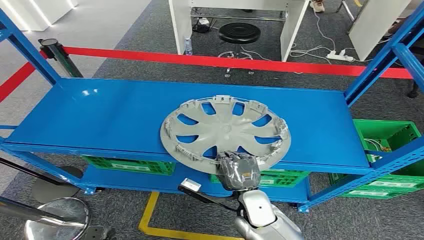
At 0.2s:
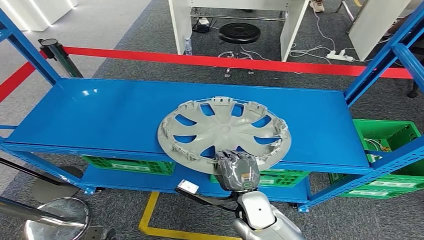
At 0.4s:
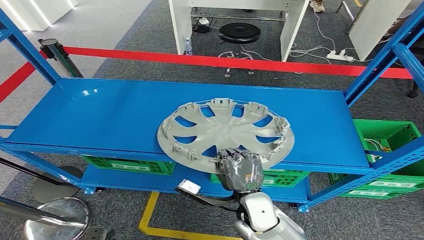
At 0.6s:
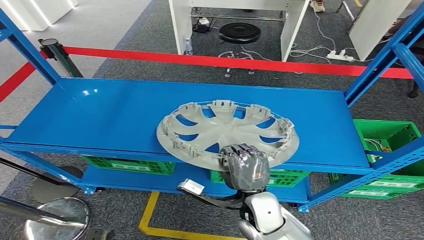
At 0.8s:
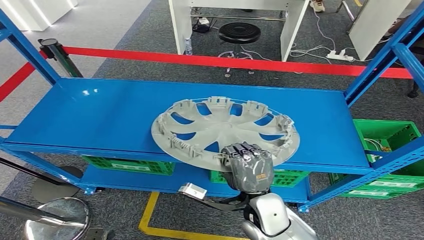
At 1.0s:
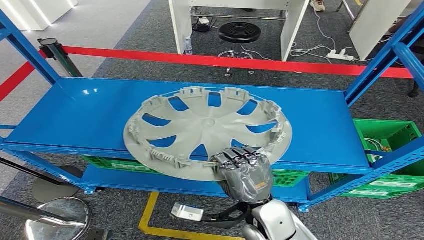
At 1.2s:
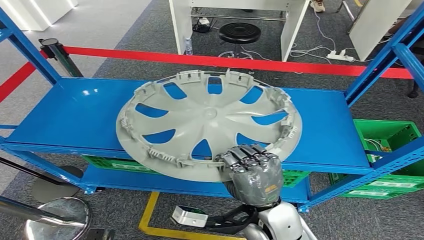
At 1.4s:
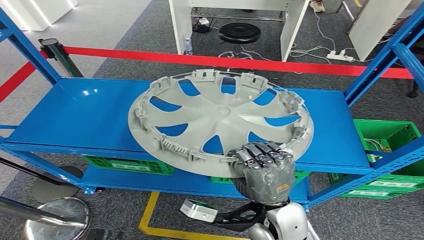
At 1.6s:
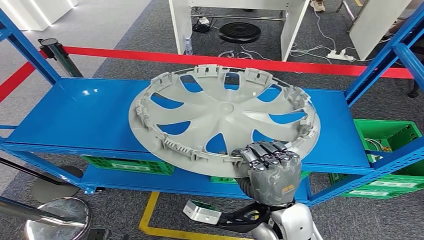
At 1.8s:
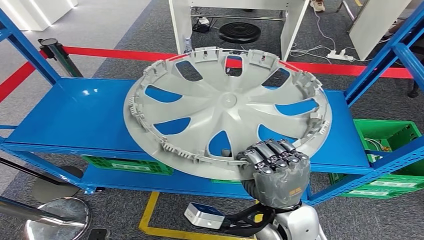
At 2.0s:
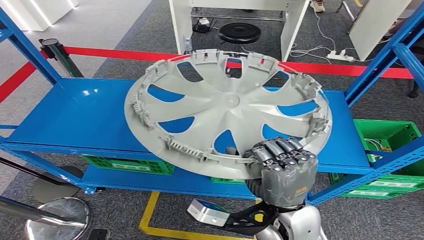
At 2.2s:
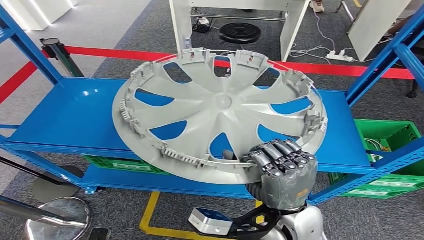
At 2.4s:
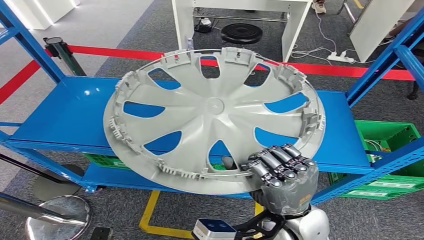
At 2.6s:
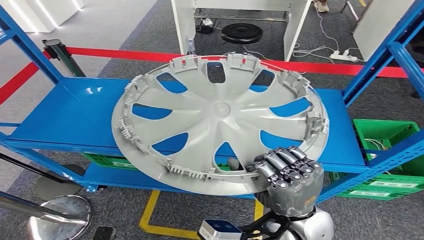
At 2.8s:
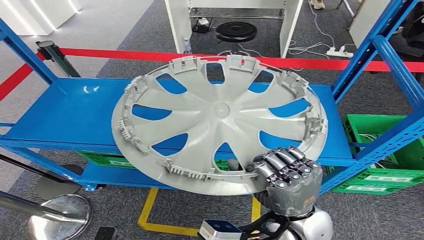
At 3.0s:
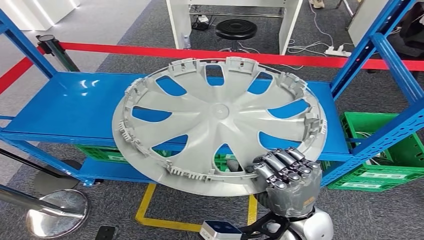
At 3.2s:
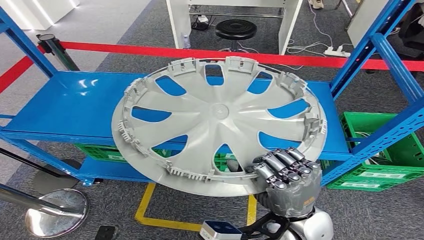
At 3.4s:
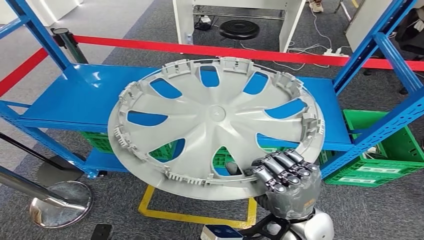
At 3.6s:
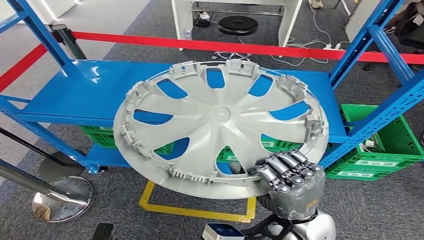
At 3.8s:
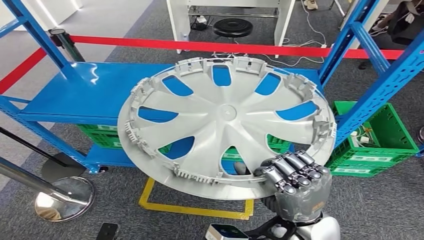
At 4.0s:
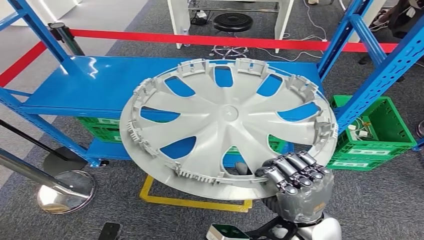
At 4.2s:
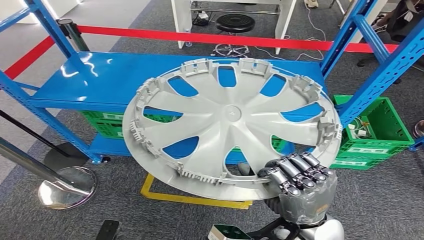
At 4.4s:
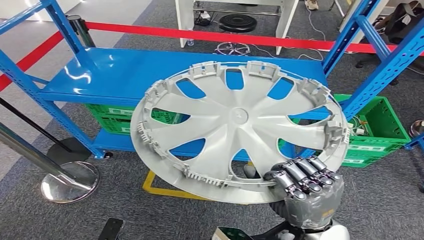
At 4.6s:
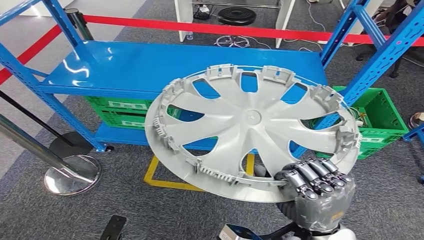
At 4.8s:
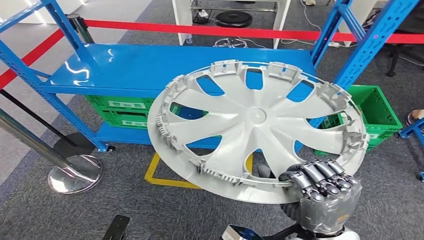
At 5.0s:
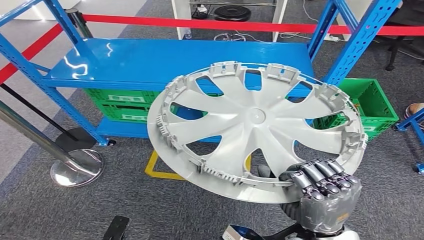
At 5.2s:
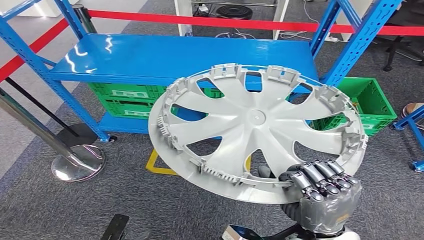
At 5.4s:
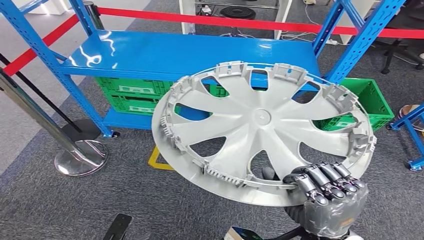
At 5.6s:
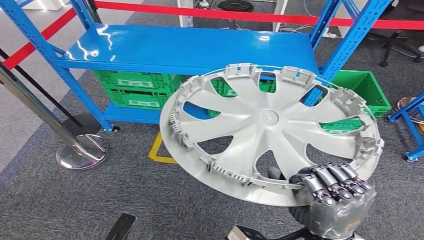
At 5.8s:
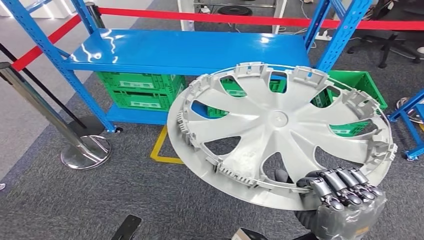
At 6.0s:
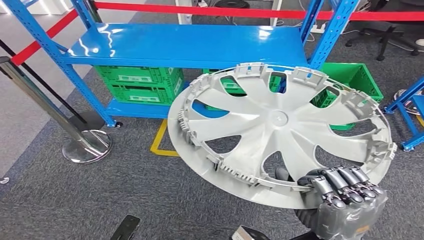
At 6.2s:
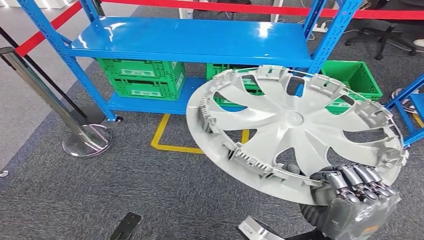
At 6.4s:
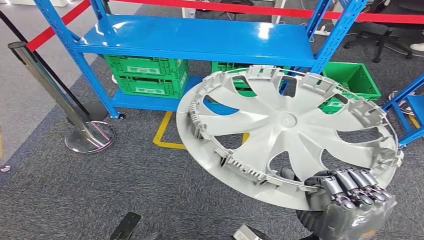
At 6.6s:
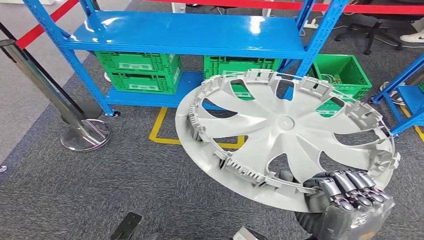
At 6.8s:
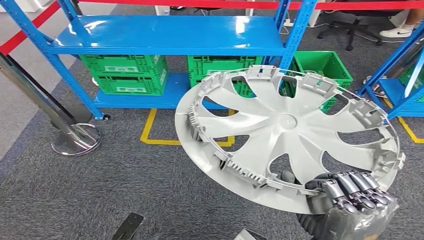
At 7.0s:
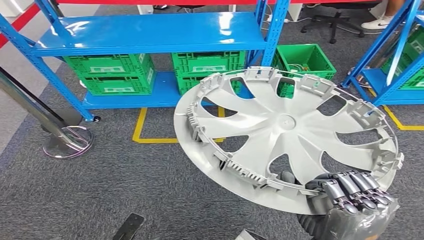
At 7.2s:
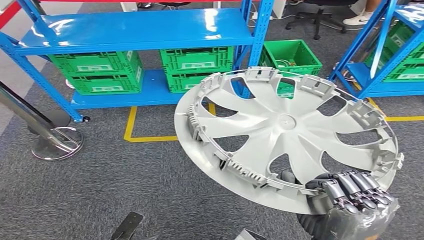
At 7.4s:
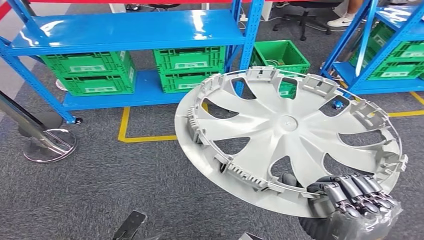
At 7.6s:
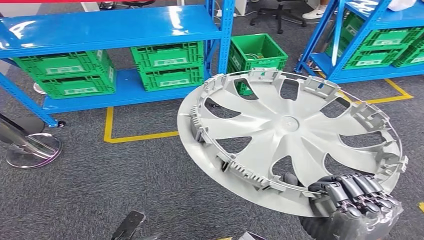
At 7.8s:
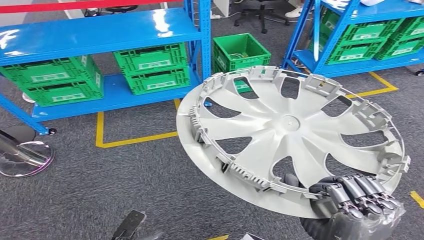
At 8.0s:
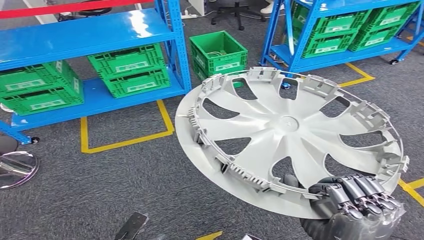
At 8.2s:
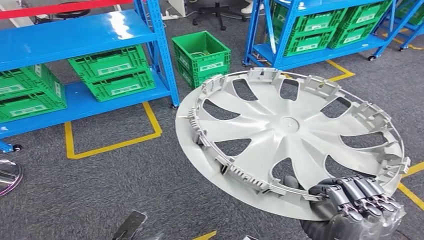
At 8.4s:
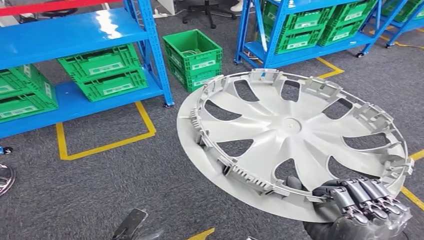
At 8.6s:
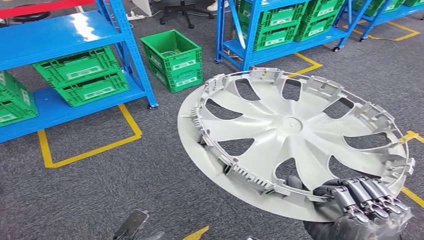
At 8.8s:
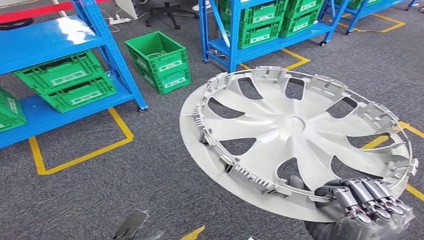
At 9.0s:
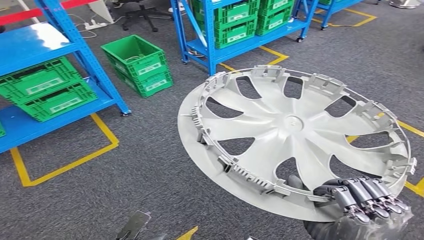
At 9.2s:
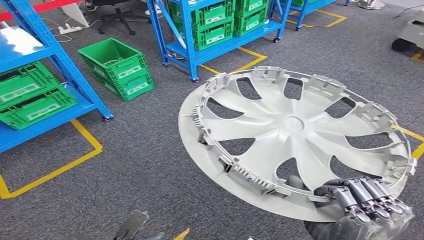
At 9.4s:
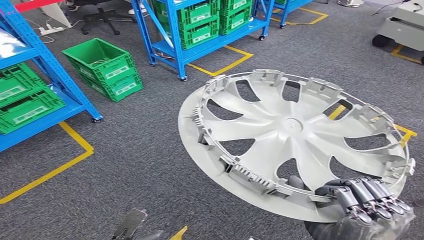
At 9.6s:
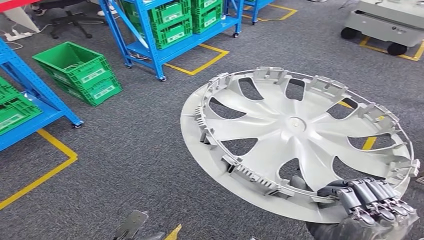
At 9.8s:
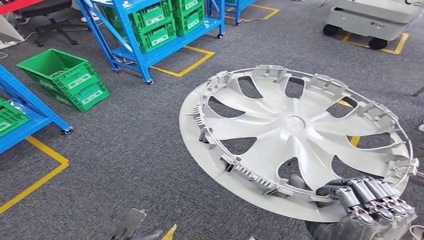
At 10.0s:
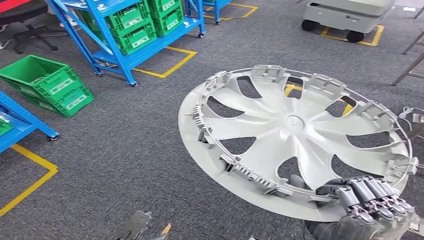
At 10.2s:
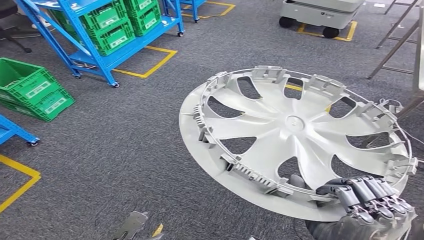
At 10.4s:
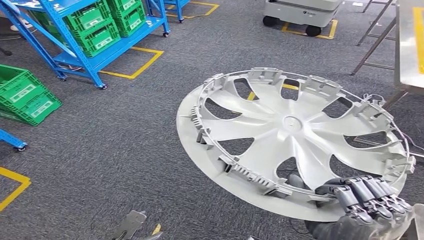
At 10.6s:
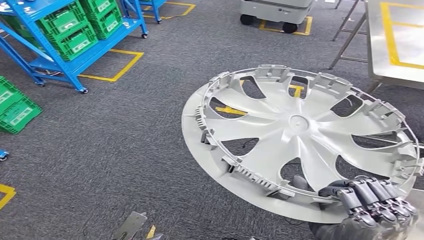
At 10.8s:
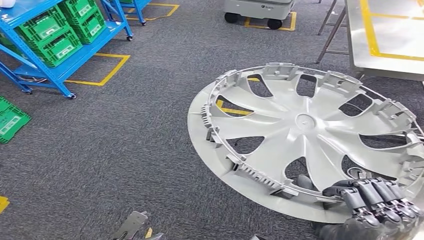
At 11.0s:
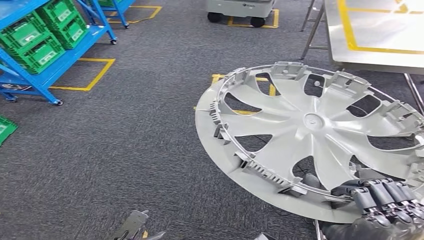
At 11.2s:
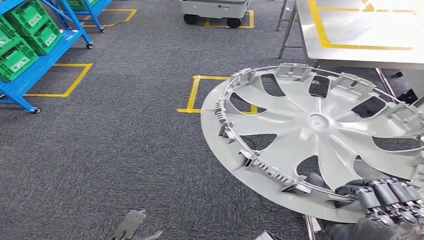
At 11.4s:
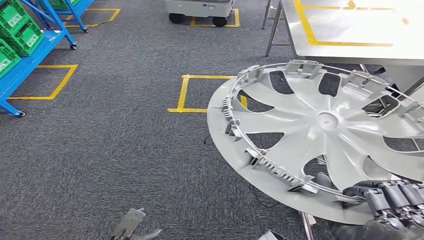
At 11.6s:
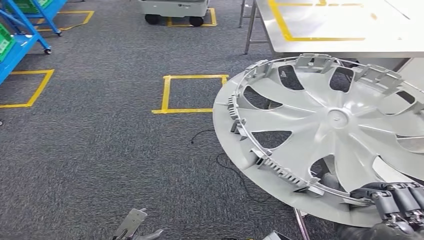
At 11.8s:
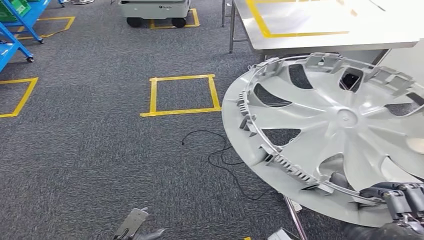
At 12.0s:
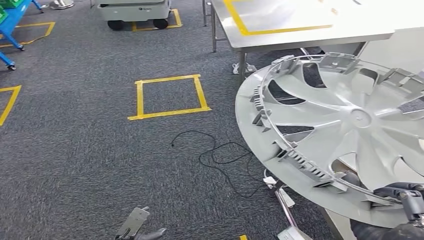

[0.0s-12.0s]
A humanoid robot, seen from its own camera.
Step, 0.0s to 1.6s: Pick up the small component from the shelf.

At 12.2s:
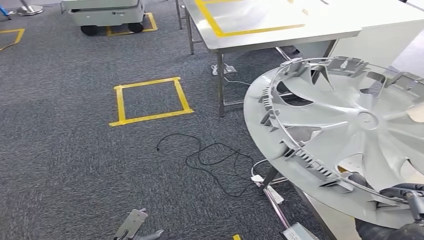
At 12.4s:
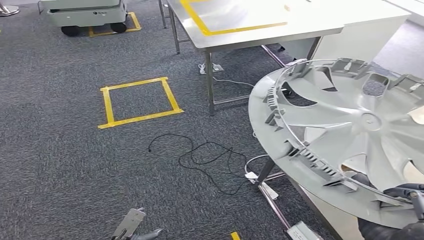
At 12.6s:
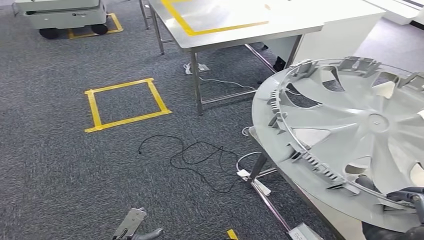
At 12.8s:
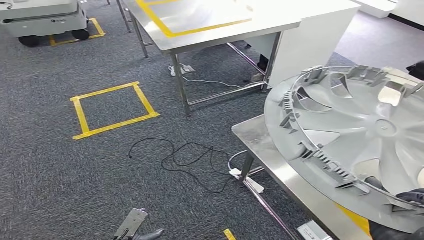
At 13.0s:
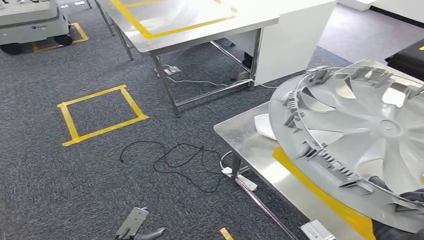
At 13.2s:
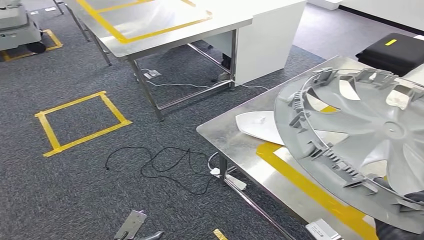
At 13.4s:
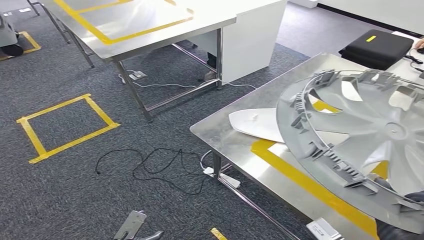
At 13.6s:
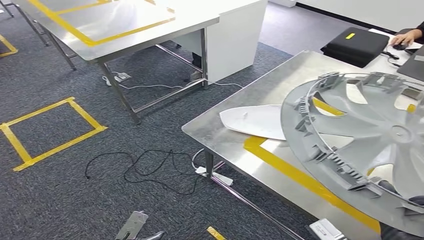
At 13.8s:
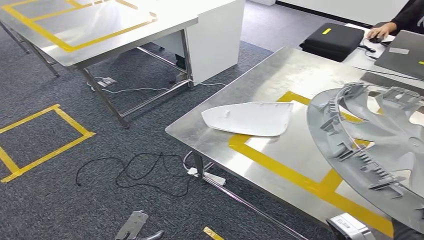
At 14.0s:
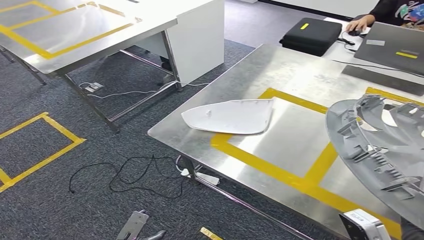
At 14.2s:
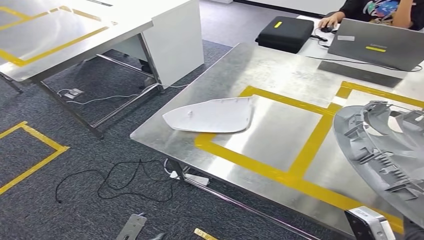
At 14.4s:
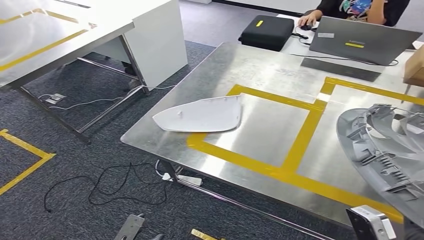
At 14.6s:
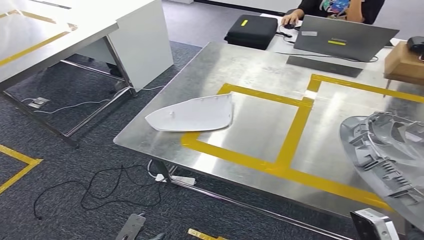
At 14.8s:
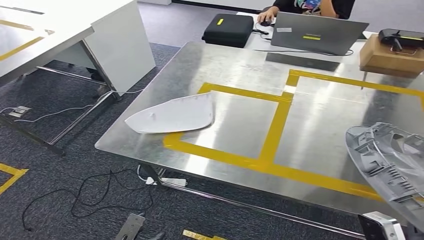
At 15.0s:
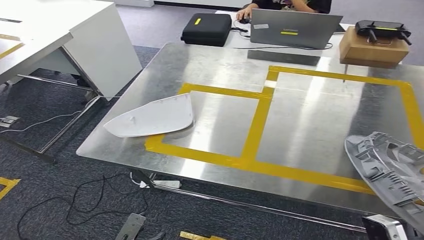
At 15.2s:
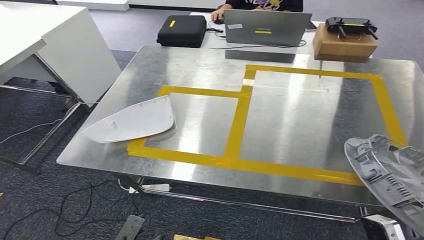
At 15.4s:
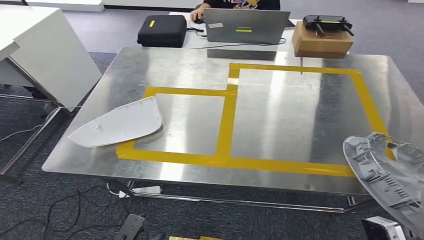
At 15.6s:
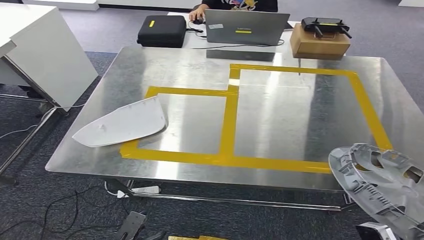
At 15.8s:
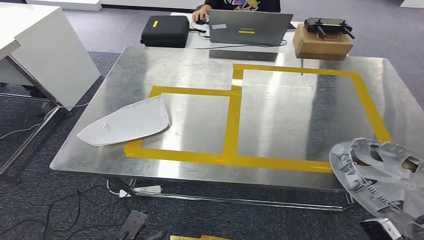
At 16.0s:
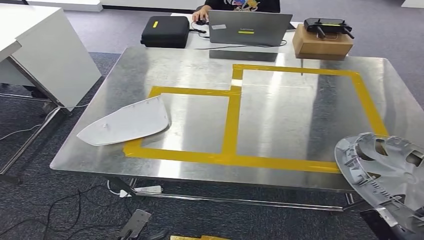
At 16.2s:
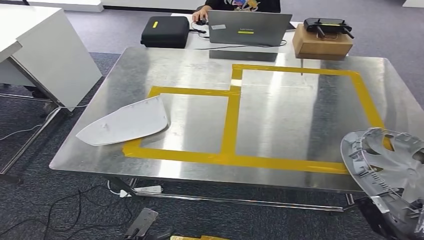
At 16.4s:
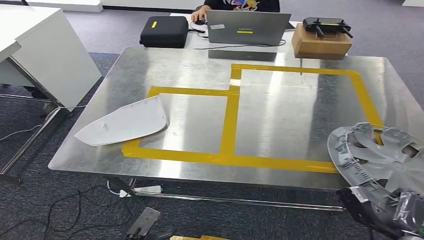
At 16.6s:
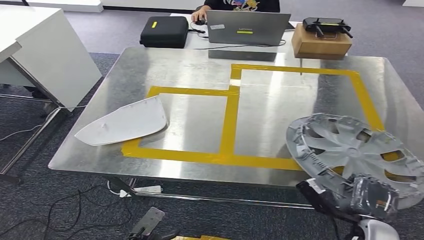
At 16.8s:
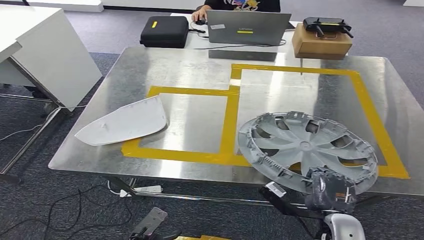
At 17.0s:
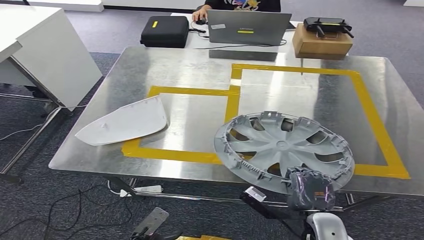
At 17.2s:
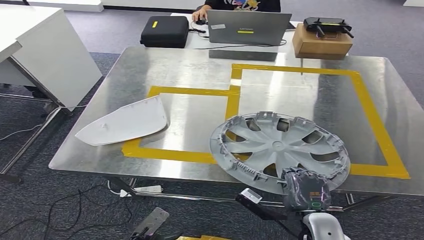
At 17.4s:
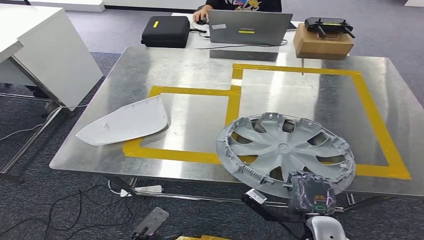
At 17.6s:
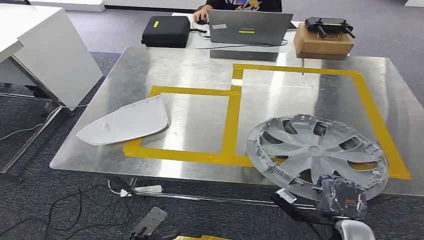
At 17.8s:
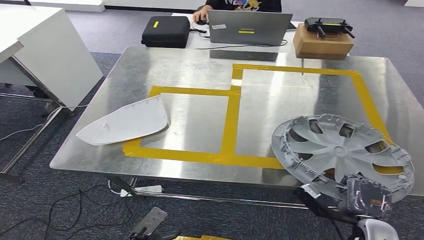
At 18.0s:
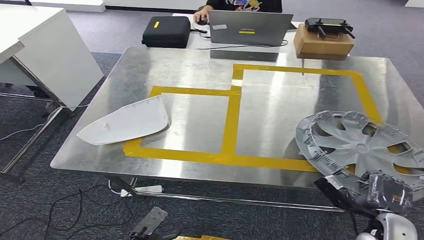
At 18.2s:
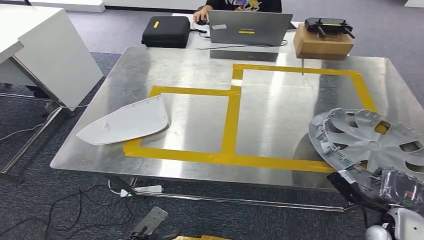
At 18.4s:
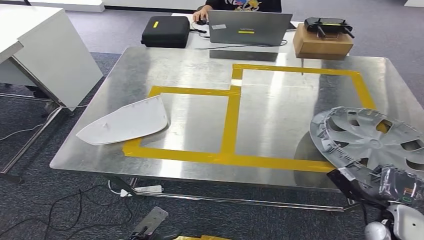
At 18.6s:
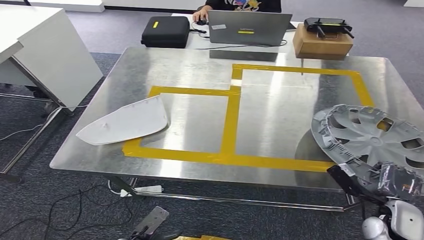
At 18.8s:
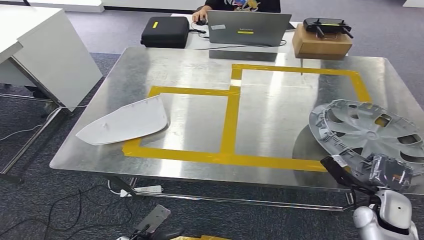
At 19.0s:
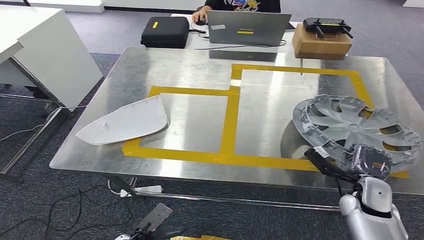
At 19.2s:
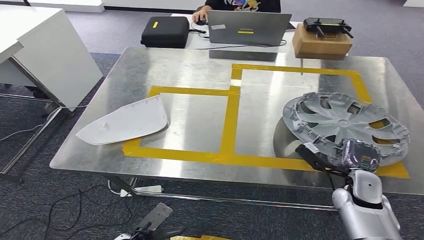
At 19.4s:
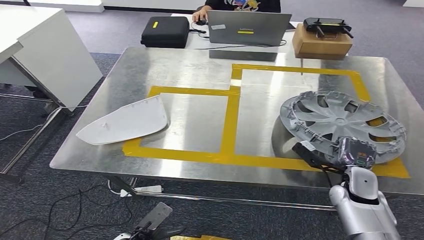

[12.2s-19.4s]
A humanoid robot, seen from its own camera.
16.6s to 18.0s: The right hand moves to the right, roughly 5 cm.
18.0s to 19.4s: The right hand shifts about 15 cm forward.
